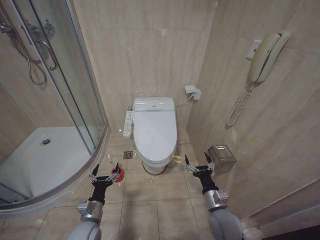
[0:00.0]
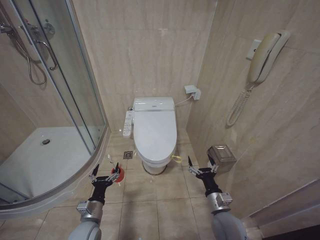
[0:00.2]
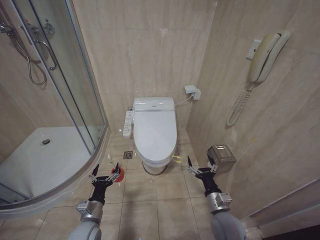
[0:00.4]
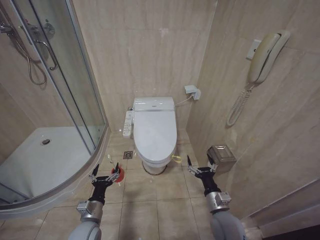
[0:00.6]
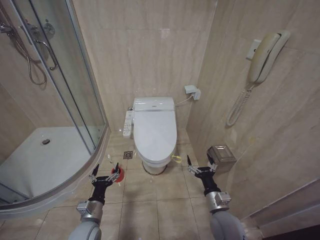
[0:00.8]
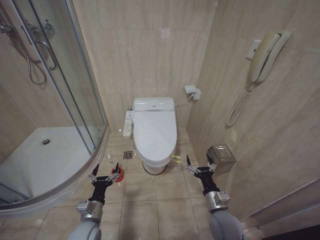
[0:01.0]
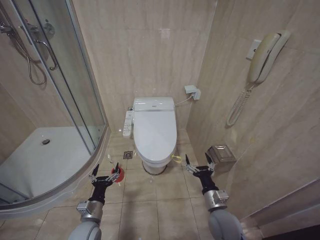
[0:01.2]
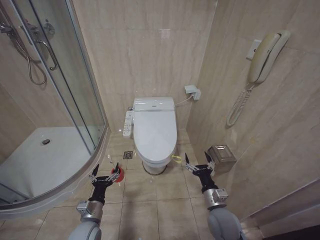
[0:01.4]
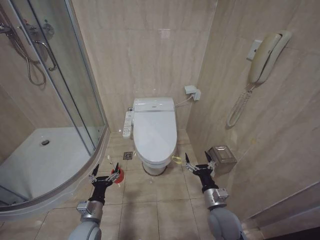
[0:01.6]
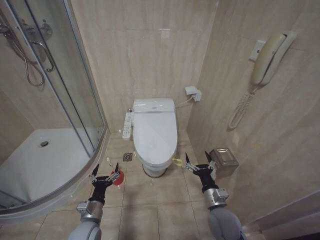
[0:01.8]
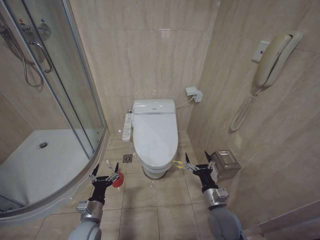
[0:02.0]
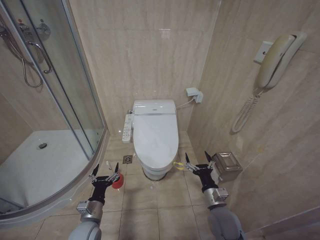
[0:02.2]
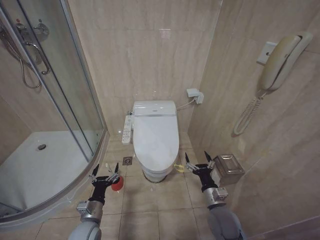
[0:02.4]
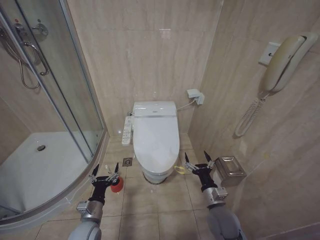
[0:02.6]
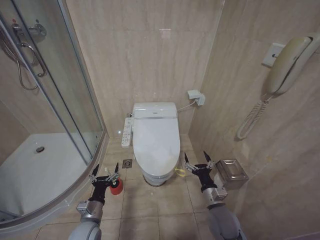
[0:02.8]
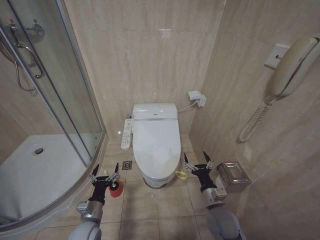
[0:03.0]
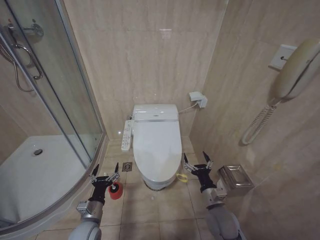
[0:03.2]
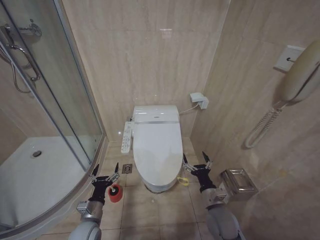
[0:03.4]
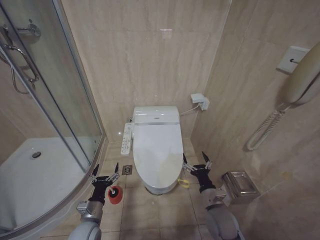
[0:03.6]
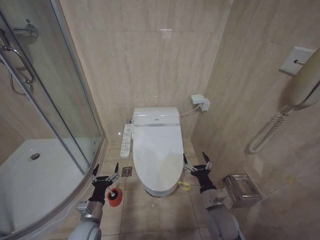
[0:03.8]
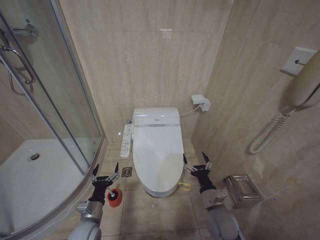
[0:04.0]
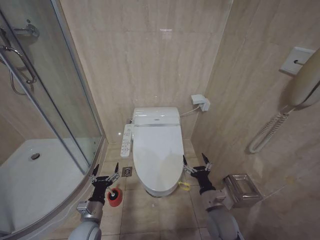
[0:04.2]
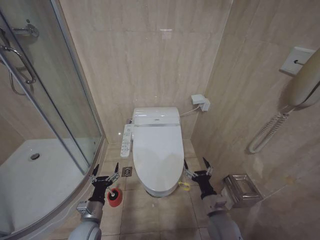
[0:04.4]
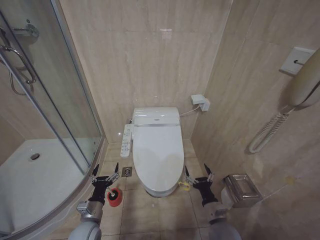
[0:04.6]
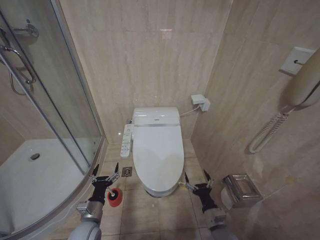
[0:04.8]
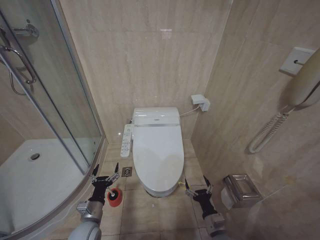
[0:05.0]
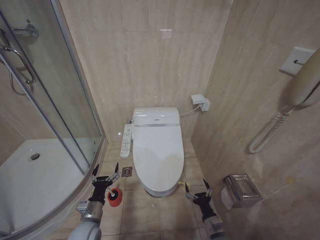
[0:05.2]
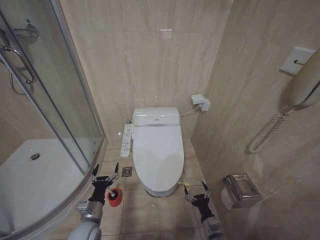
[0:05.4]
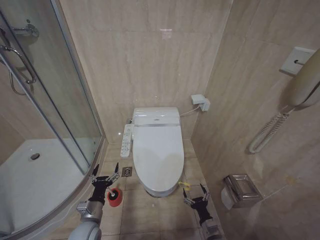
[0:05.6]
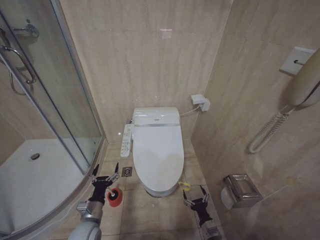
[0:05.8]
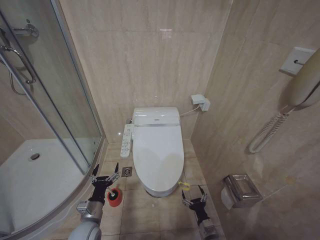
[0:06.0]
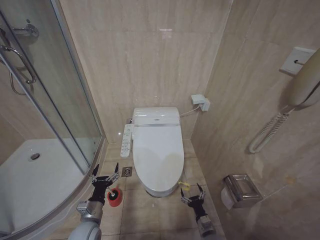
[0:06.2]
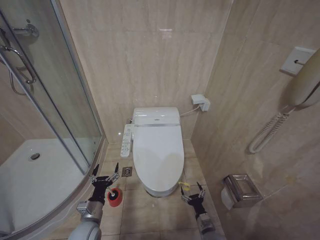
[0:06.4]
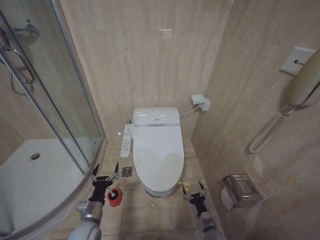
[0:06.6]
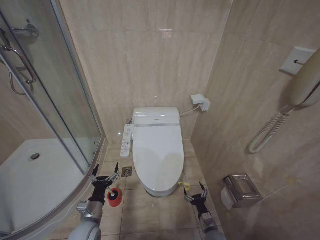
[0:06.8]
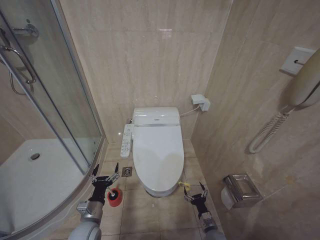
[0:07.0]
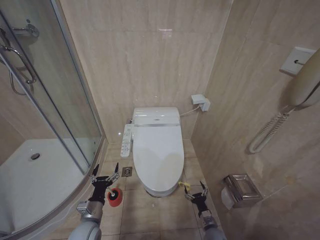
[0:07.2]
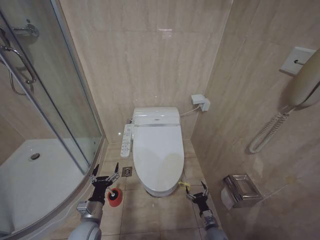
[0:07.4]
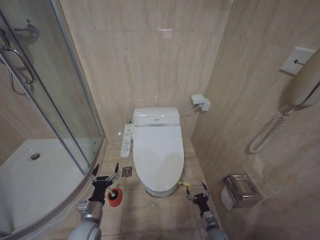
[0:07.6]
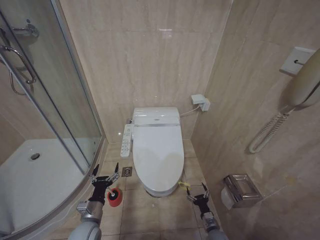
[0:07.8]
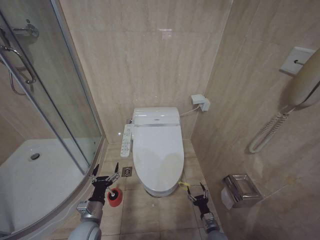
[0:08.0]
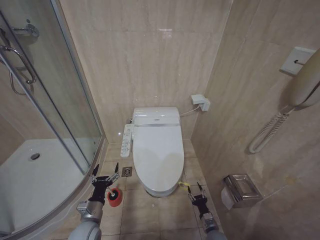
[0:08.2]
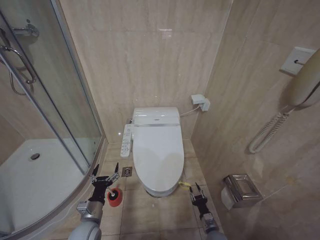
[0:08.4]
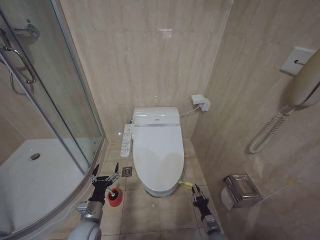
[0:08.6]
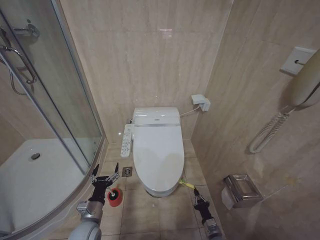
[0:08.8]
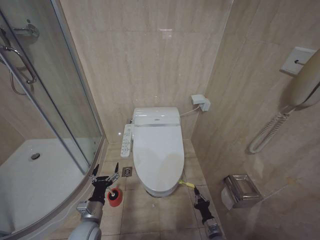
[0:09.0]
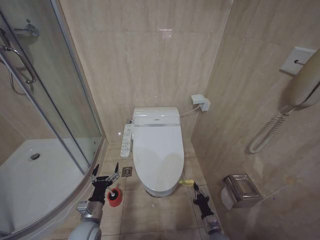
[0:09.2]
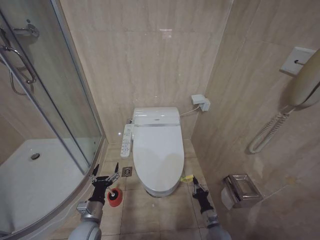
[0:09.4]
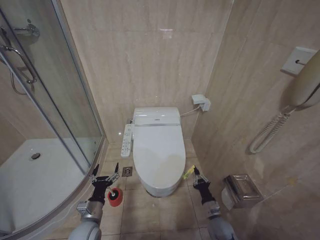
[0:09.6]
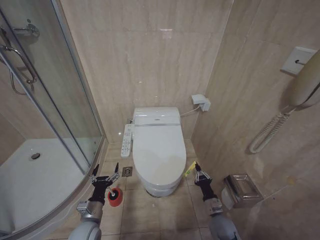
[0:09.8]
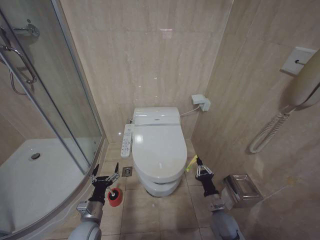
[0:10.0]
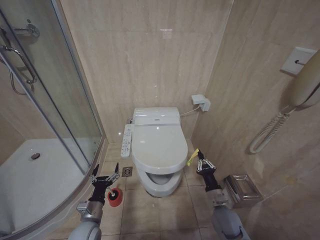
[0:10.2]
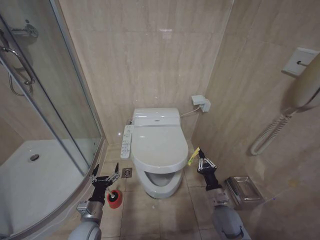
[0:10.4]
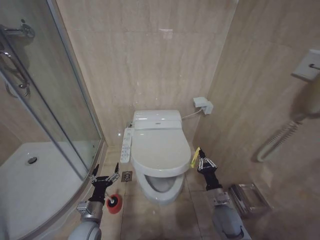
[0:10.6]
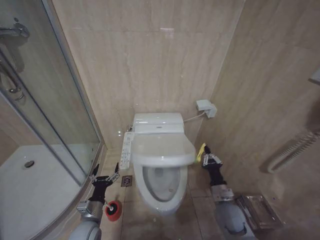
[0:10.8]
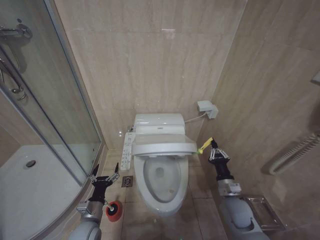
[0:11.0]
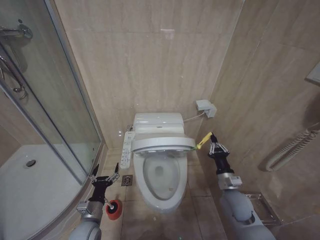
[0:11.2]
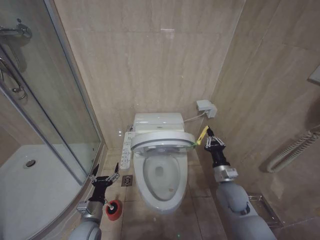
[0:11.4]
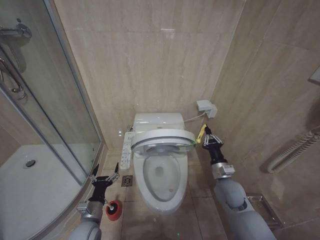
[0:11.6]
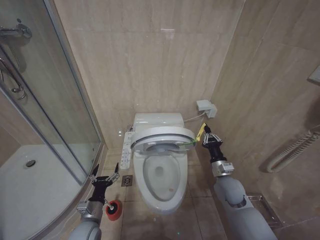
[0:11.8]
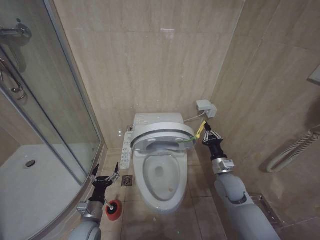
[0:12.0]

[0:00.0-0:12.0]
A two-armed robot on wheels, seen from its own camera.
Task of the whole recording: Open the toilet lid, clean the toilet bowl with a toilet brush, close the toilet lid, and flush.
0:01.6 to 0:03.0: Both grippers stay put.
0:03.0 to 0:04.4: The grippers stay close to where they were, moving slightly.
0:04.4 to 0:06.0: The right gripper goes roughly 15 cm downward.
0:09.0 to 0:10.4: The right gripper travels upward by about 20 cm.
0:10.4 to 0:12.0: The right gripper shifts about 10 cm upward and forward.

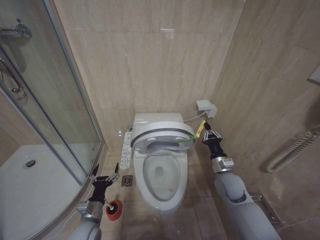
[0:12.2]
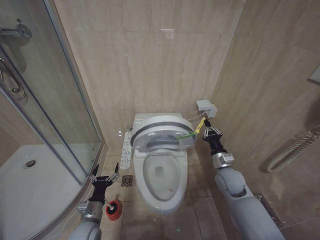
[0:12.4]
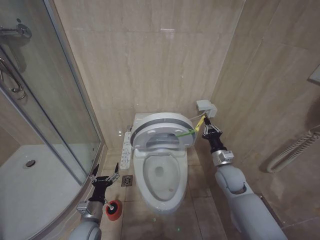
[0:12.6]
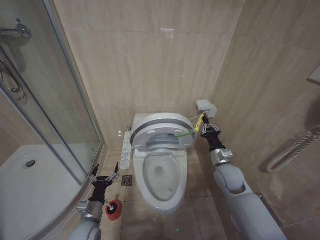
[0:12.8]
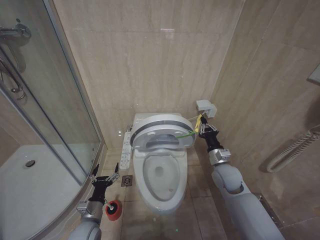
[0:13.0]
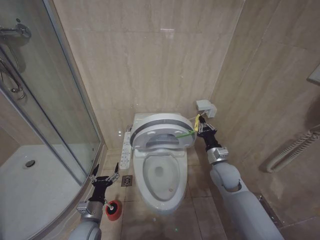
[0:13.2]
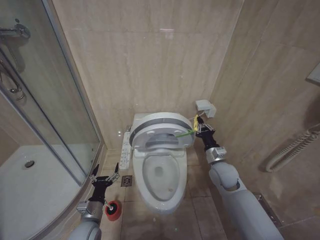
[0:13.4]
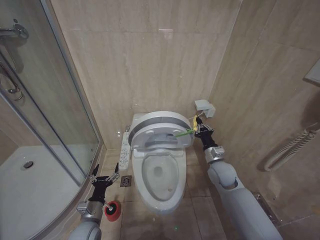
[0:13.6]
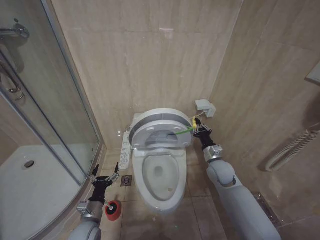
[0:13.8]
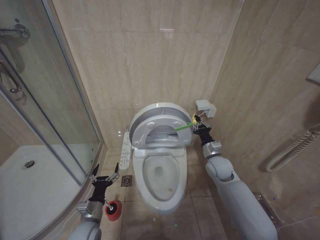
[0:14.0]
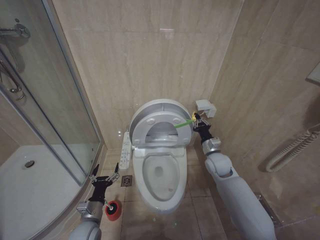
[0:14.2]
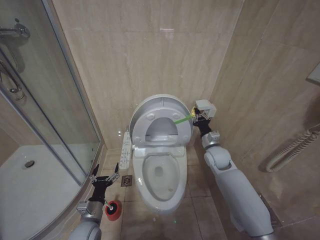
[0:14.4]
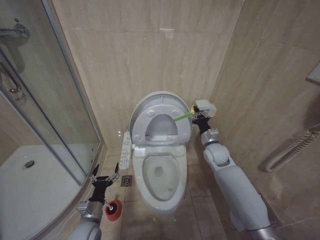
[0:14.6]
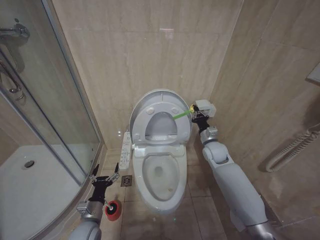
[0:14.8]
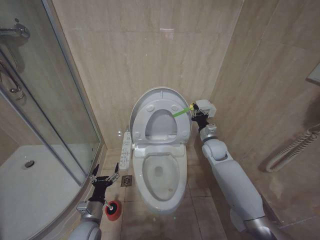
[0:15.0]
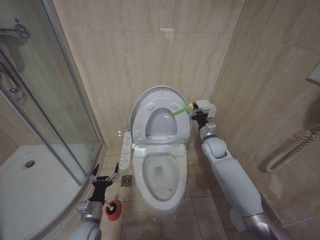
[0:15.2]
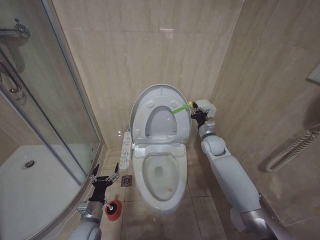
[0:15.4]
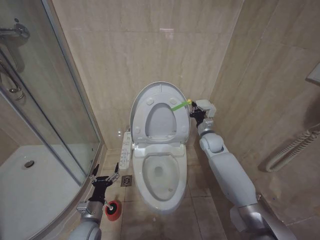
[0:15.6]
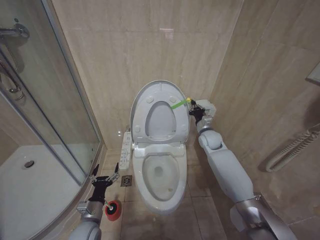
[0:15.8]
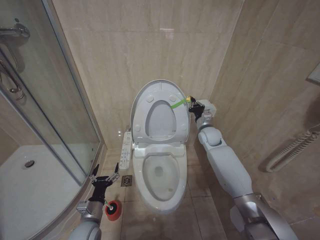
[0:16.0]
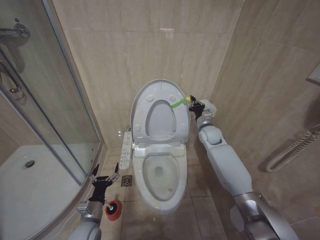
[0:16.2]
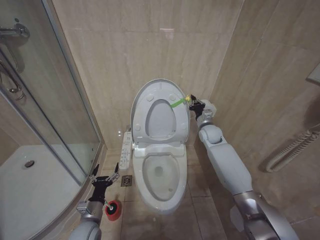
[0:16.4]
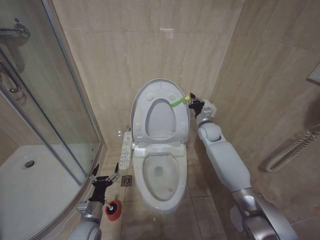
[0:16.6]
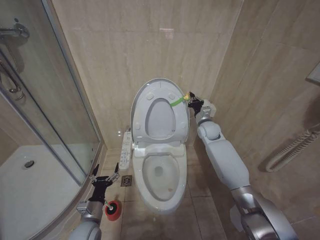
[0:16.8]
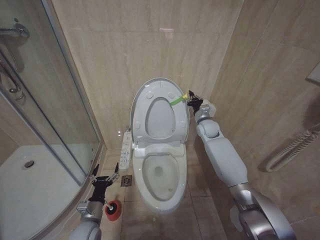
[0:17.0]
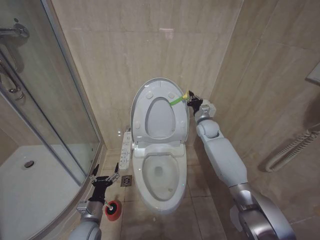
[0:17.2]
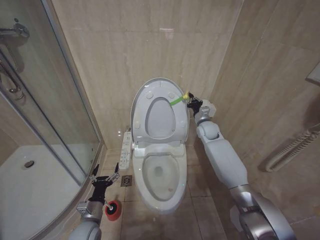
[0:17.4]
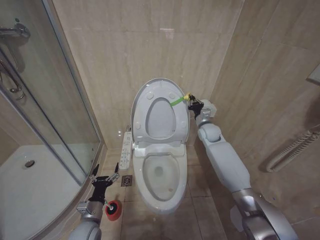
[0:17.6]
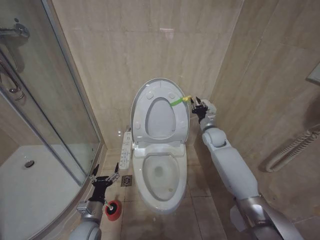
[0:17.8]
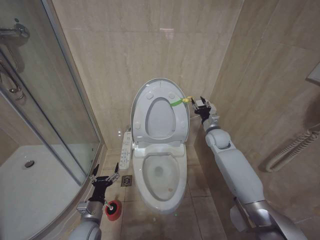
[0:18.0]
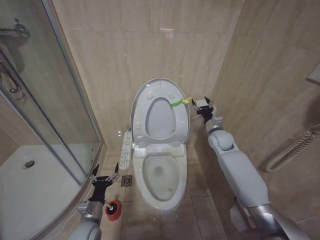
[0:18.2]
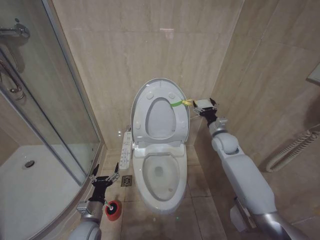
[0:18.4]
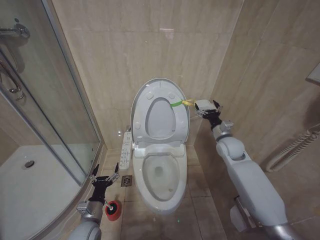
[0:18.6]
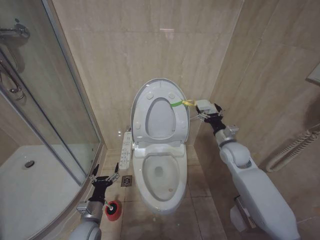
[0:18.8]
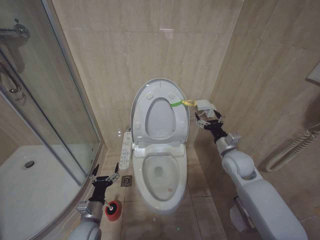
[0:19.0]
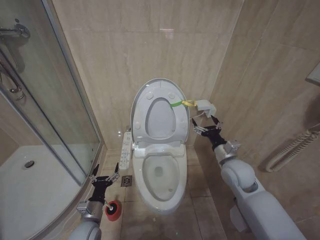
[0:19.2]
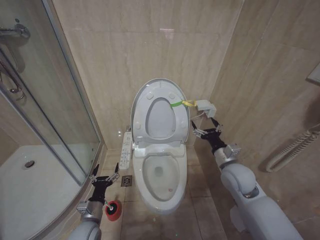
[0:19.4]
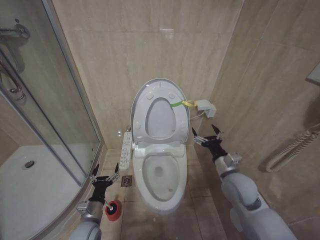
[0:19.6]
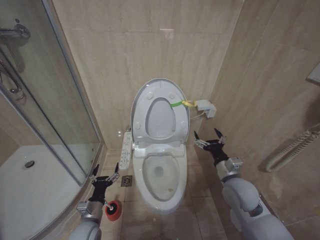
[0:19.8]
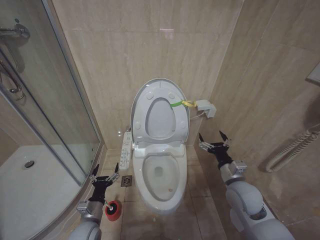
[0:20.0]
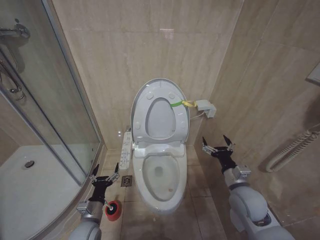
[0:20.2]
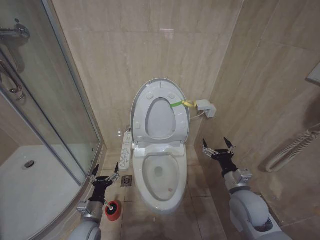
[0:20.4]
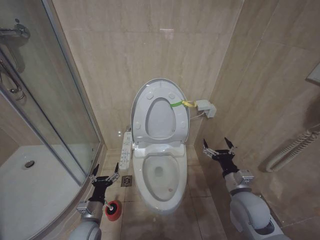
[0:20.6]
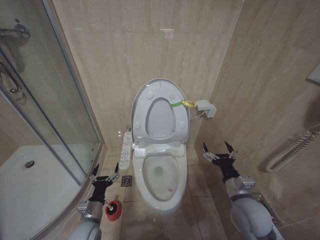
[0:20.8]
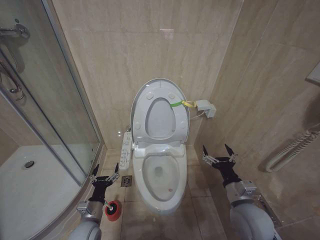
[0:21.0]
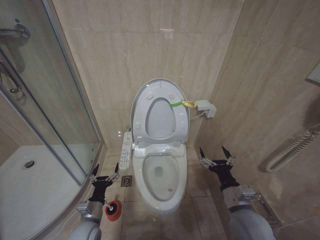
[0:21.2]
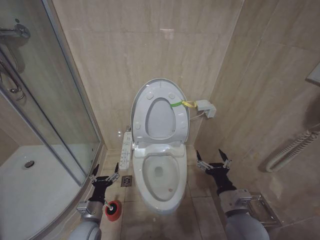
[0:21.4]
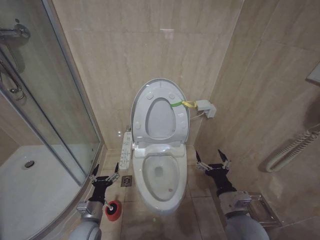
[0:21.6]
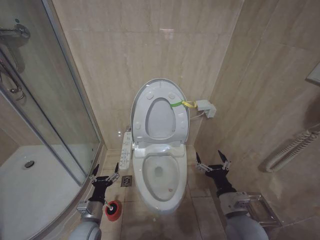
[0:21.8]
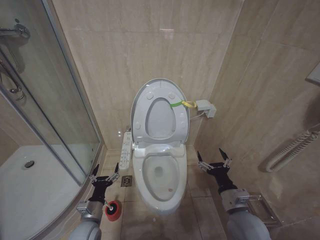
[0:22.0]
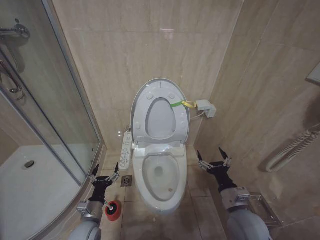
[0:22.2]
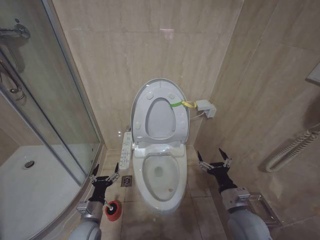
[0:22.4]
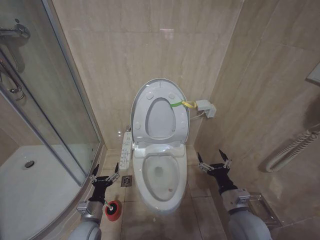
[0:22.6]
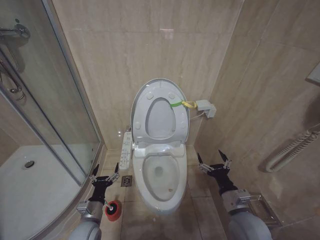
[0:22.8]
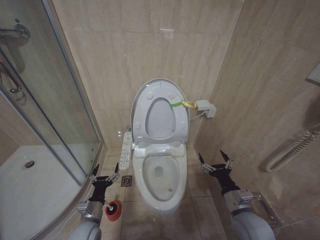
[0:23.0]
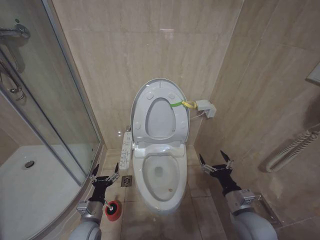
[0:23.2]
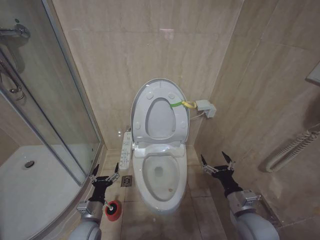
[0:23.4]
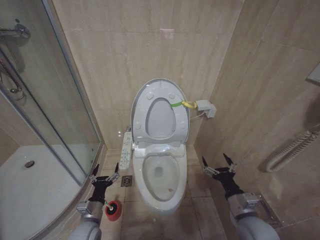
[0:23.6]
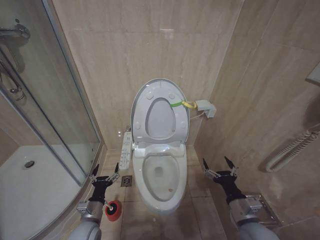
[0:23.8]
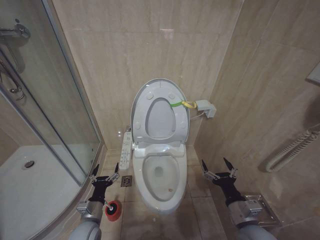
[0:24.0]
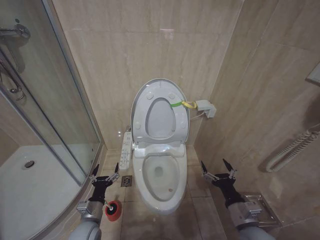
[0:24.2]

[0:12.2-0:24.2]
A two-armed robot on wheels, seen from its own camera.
Task of the whole recording: Open the toilet lid, clean the toilet bowl with a toilet brush, close the toilet lid, and flush.
0:12.2 to 0:13.8: The right gripper ends up some 5 cm from where it was.
0:13.8 to 0:15.2: The right gripper is displaced forward by about 10 cm.
0:15.2 to 0:16.6: The right gripper travels forward by approximately 5 cm.
0:16.6 to 0:18.2: The right gripper opens up.
0:18.2 to 0:19.8: The right gripper moves backward, some 20 cm.
0:19.8 to 0:21.2: The right gripper travels backward by about 10 cm.
0:22.6 to 0:24.2: The grippers stay close to where they were, moving slightly.
